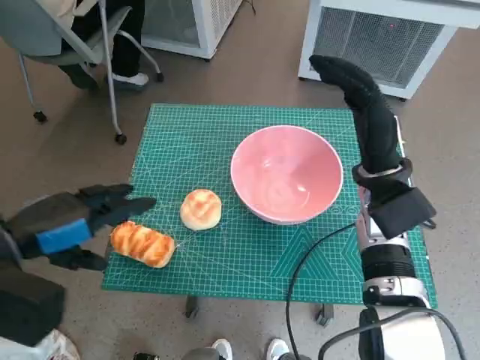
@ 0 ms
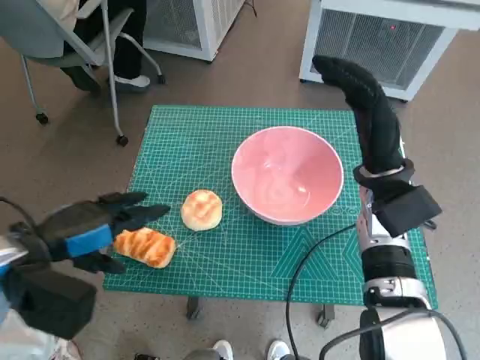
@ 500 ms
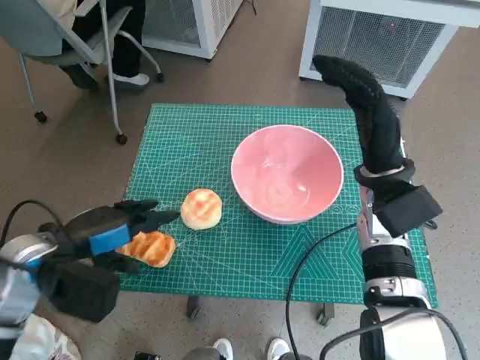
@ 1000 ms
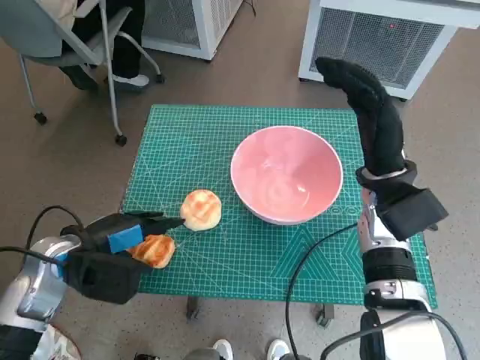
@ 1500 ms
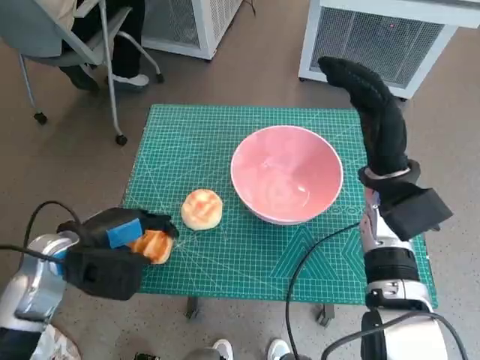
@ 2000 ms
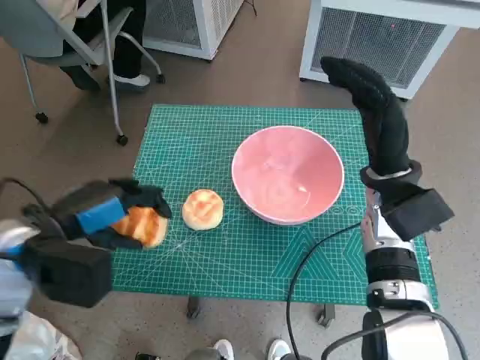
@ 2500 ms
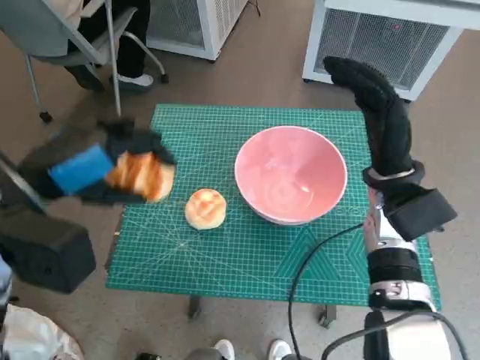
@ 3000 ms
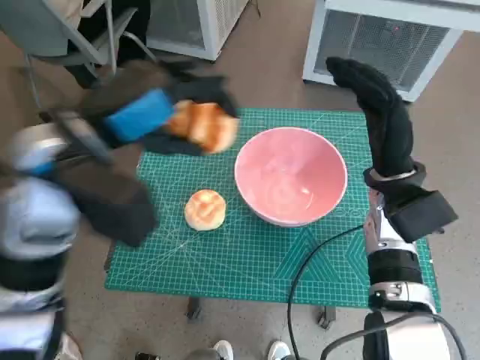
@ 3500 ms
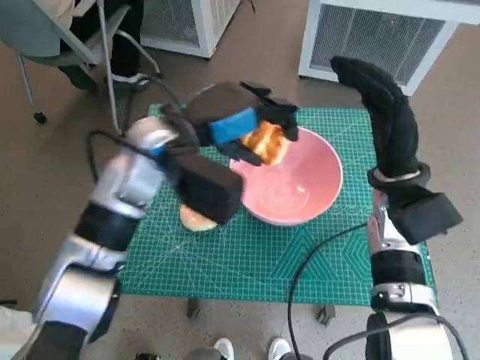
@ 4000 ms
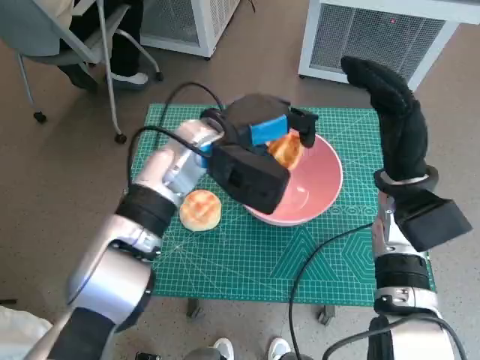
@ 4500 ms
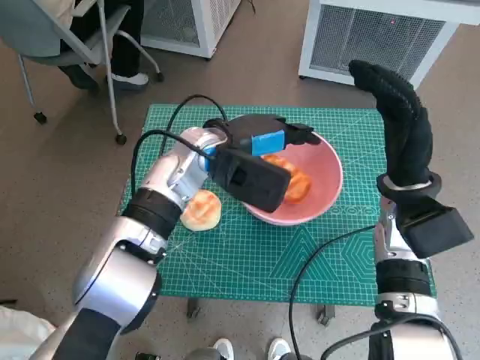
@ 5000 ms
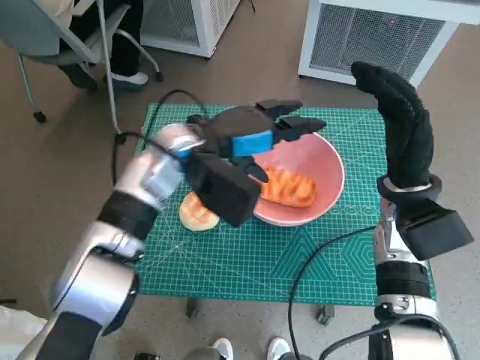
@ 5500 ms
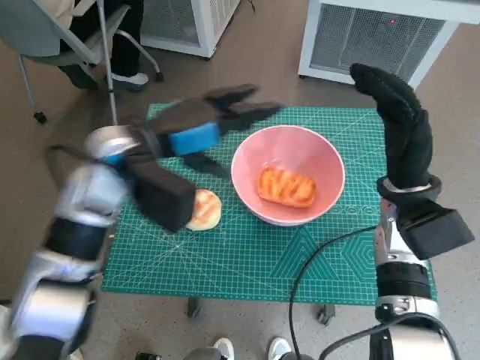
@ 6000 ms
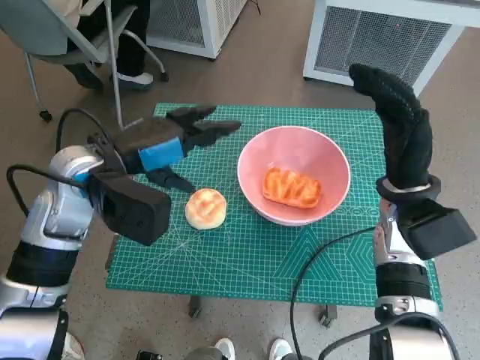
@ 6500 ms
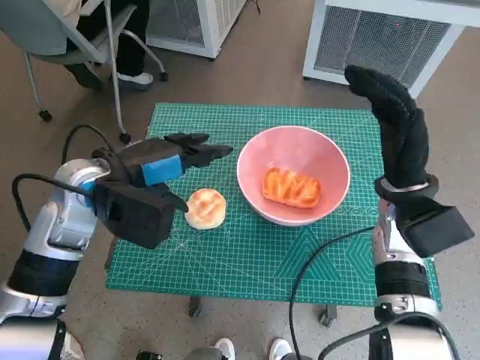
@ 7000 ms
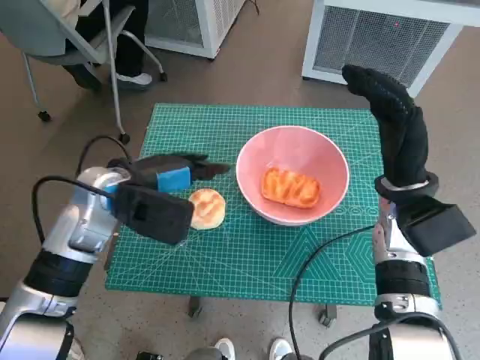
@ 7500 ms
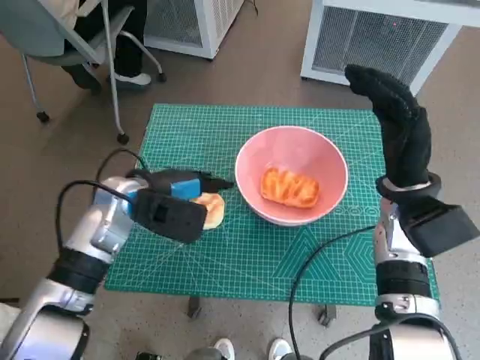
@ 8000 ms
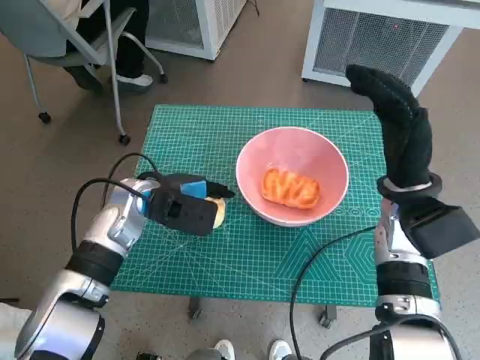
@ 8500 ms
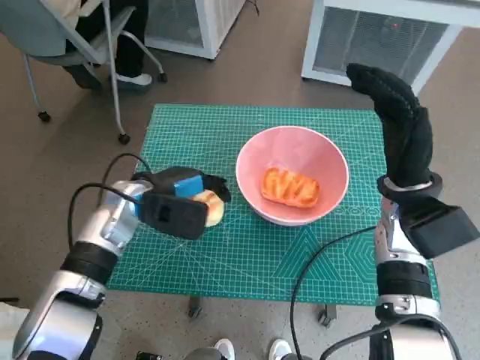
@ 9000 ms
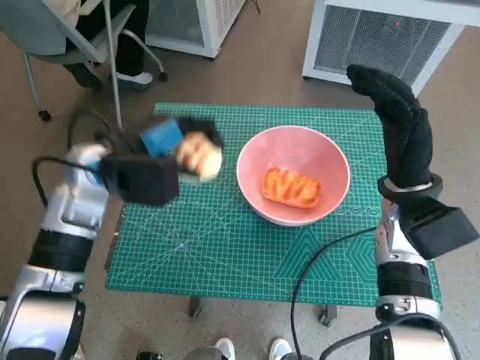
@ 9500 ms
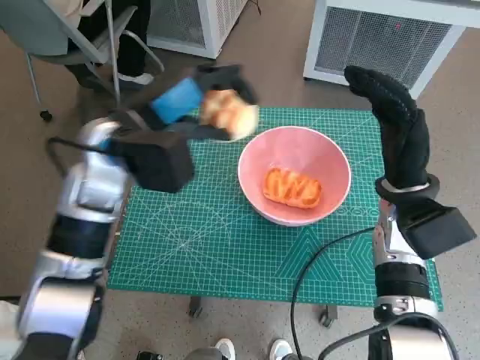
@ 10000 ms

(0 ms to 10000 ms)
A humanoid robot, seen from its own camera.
Task of the whole recording: Push the bowl to the center of the table and put the bread into the bowl.
Step, 2000 ms - 5000 ms: Place the long bread in pink bowl with left hand.
Step, 5500 ms - 8500 ms: Grasp the round bread with left hand.
0 ms - 2000 ms: The left hand goes about 10 cm downward.
2000 ms - 4000 ms: The left hand goes about 20 cm to the right, upward and forward.
6000 ms - 8000 ms: The left hand goes approximately 10 cm downward.
8000 ms - 10000 ms: The left hand is displaced upward by approximately 10 cm.

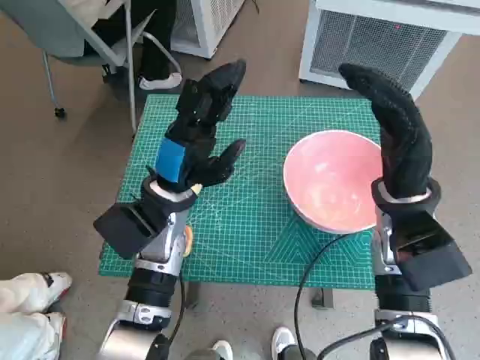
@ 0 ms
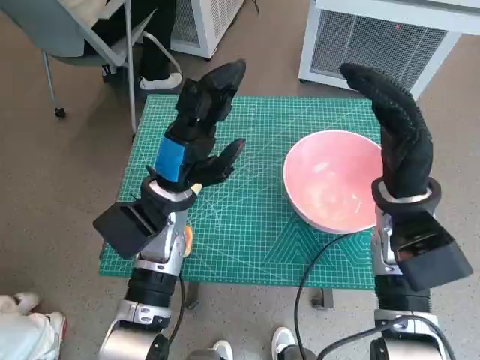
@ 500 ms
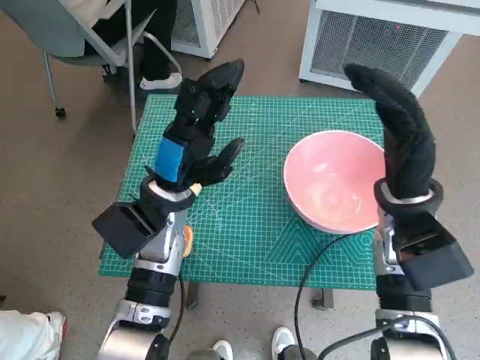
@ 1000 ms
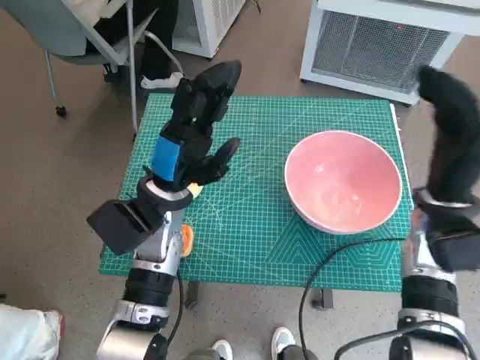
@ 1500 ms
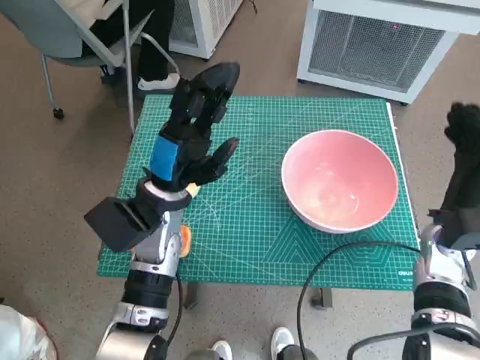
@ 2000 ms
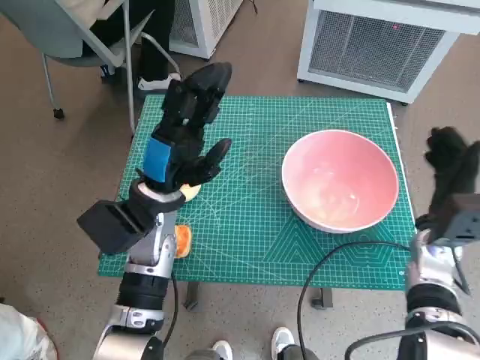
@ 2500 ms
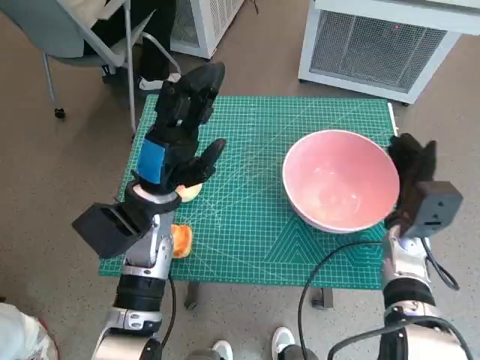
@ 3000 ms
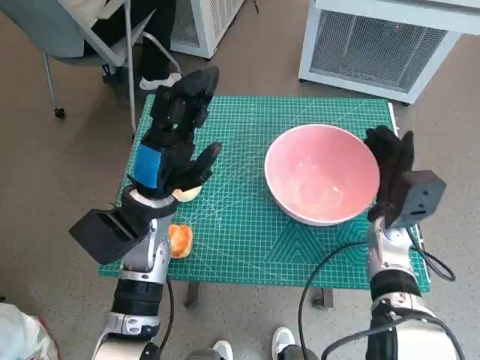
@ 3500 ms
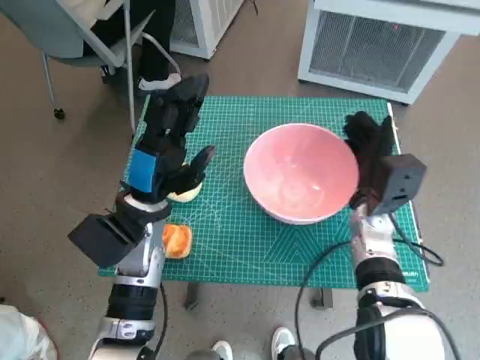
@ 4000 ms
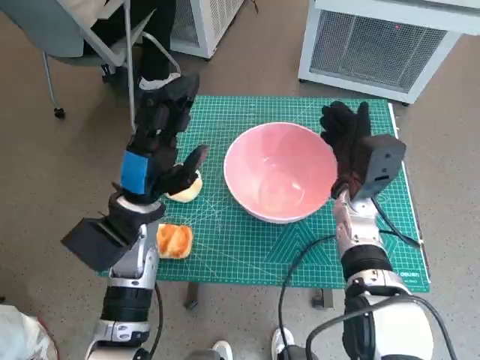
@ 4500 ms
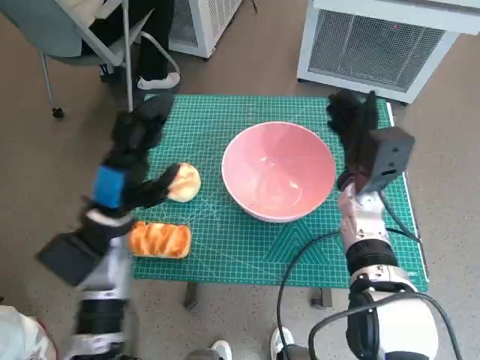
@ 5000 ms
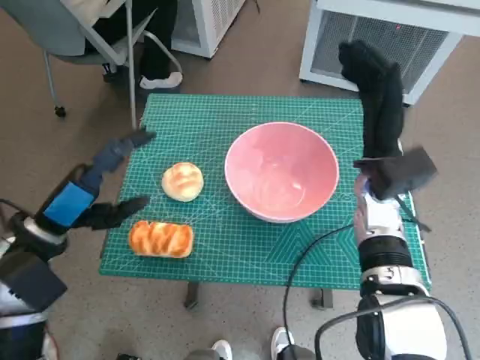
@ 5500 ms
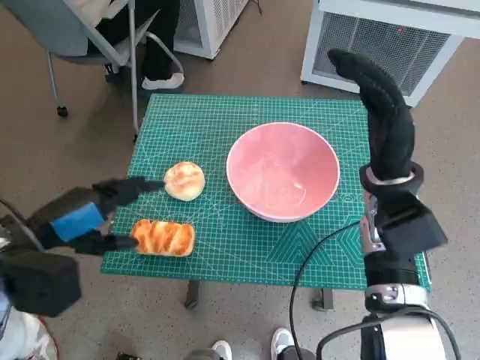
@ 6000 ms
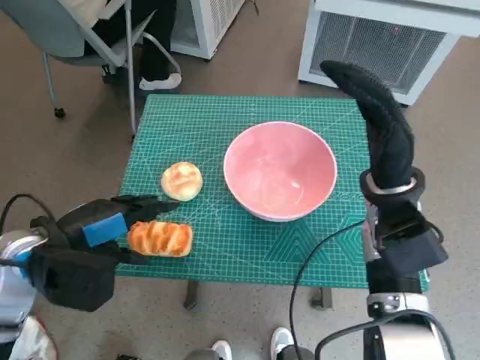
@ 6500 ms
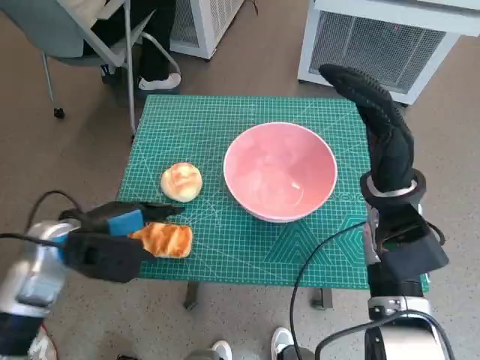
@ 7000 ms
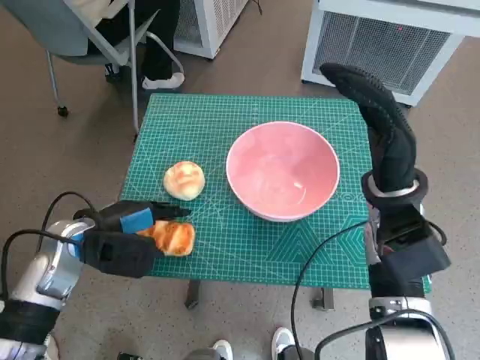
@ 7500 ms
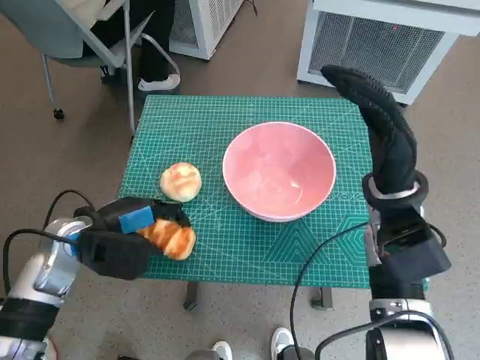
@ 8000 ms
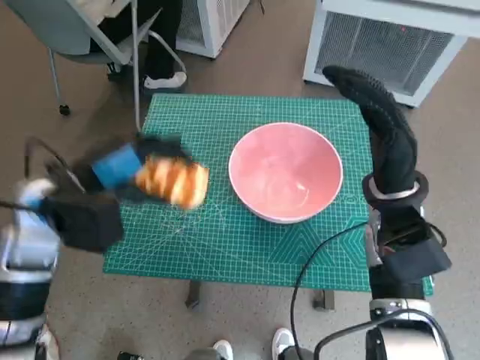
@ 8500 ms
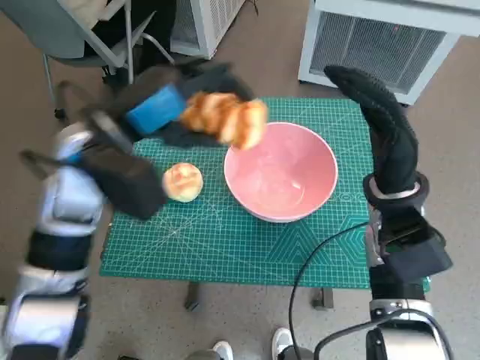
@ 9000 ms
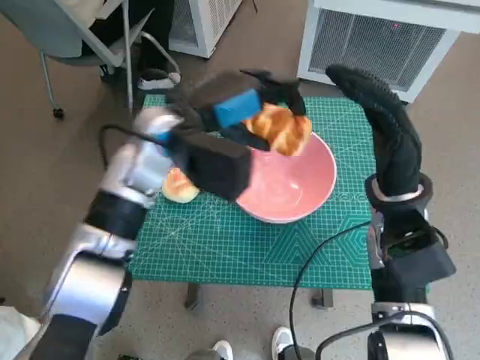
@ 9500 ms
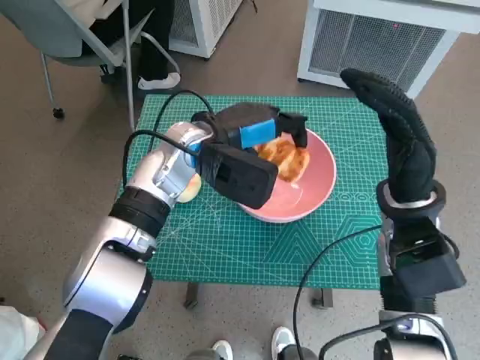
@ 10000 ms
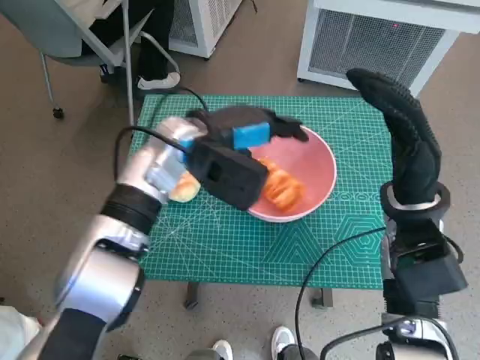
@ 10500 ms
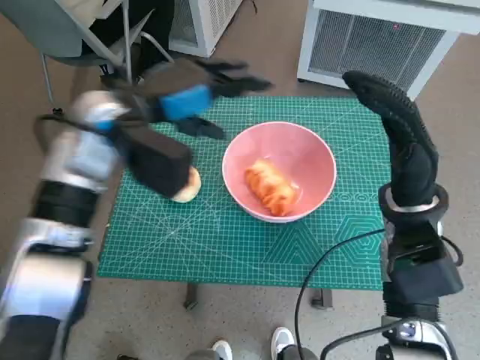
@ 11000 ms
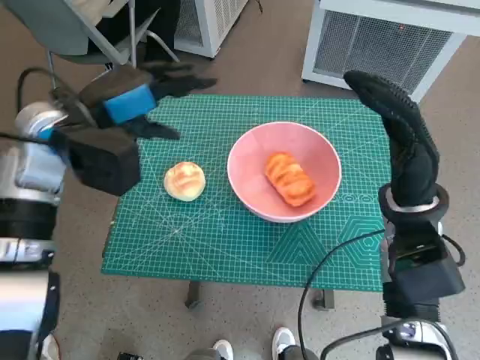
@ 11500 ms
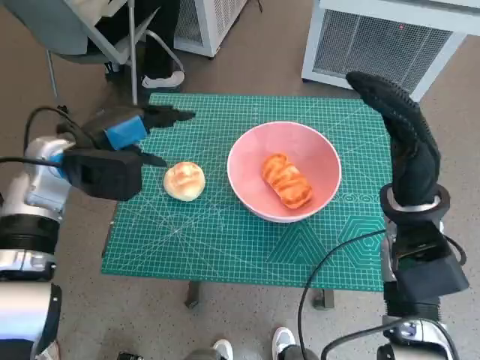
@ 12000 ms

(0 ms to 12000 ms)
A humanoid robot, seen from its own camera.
Task of the whole recording: Push the bowl to the center of the table and put the bread into the bowl.
Step, 0 ms - 5000 ms: Move the pink bowl to the center of table with right hand.
Step, 5500 ms - 7500 ms: Grasp the long bread with left hand.
Step, 8000 ms - 10500 ms: Place the long bread in pink bowl with left hand.
2000 ms - 4000 ms: The right hand travels to the left by some 10 cm.
4000 ms - 6000 ms: The right hand travels upward by about 10 cm. Meanwhile the left hand moves to the left, backward and upward, about 15 cm.
6000 ms - 8000 ms: The left hand is displaced downward and forward by some 10 cm.
8000 ms - 10000 ms: The left hand is displaced to the right, forward and upward by roughly 20 cm.
10000 ms - 12000 ms: The left hand shifts roughly 15 cm to the left.

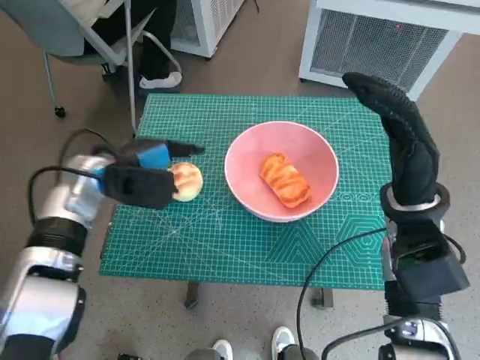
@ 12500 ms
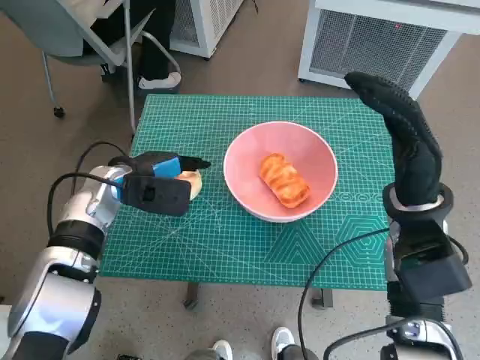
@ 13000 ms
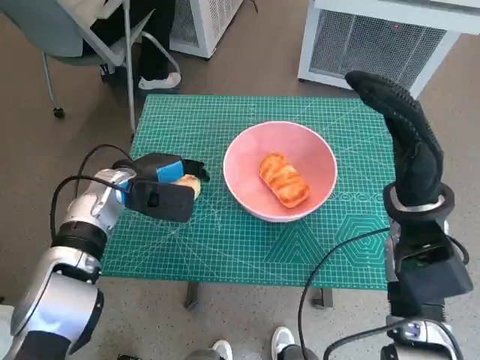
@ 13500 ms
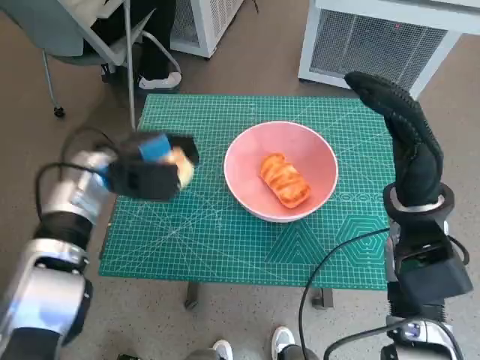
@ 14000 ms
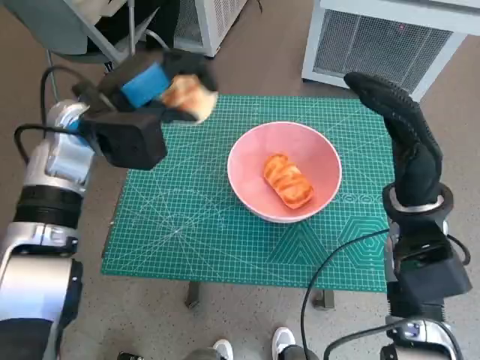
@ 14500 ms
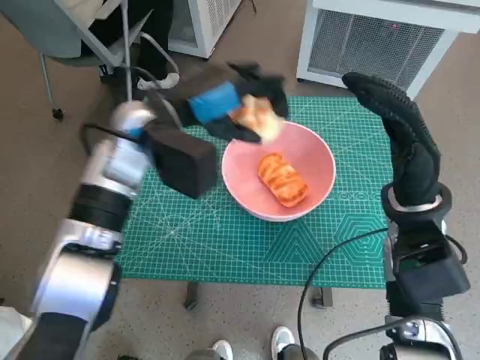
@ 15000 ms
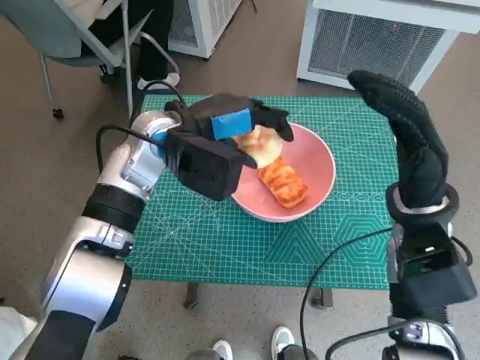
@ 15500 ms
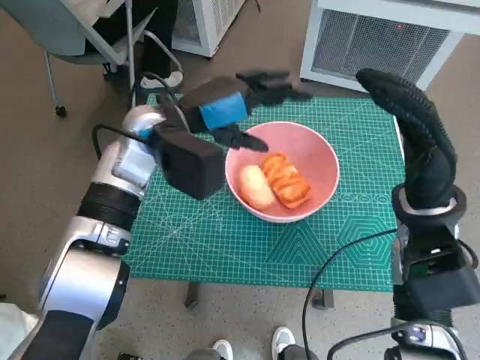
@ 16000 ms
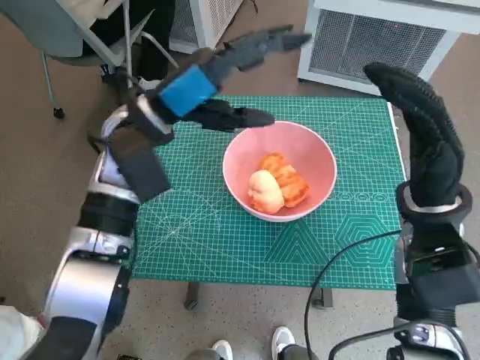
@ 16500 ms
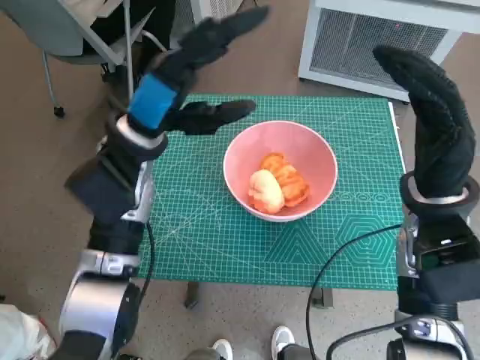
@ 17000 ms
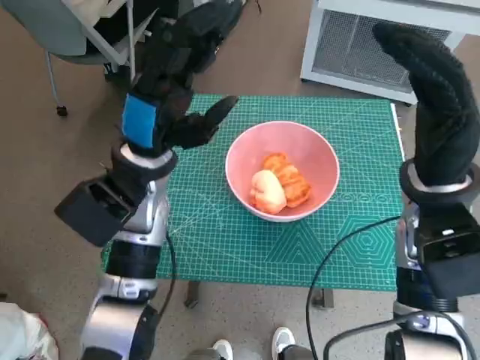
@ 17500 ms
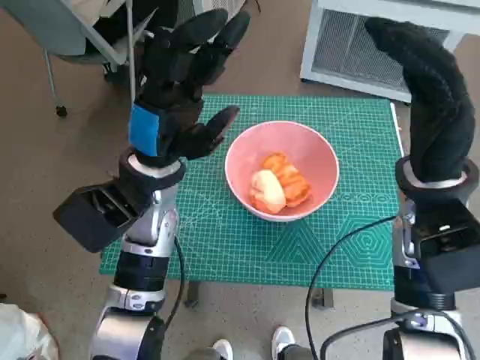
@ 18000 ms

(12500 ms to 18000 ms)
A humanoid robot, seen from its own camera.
Task of the whole recording: Push the bowl to the center of the table and put the bread into the bowl.
Step, 14000 ms - 15500 ms: Place the round bread in pink bowl with left hand.
12500 ms - 14500 ms: The left hand is displaced upward by about 10 cm.
14500 ms - 16000 ms: The left hand shifts roughly 10 cm to the right.
16000 ms - 18000 ms: The left hand moves backward, approximately 5 cm.
